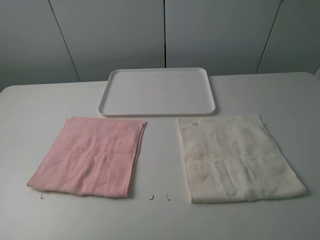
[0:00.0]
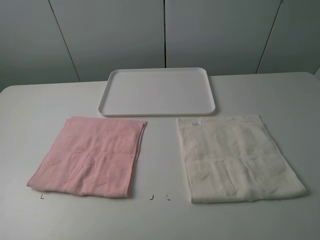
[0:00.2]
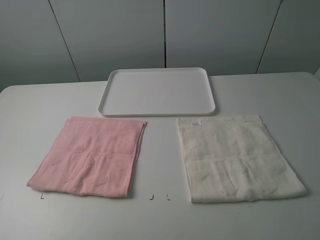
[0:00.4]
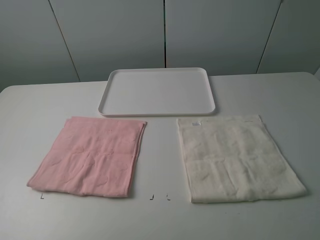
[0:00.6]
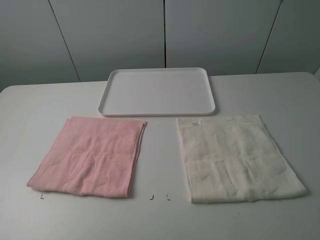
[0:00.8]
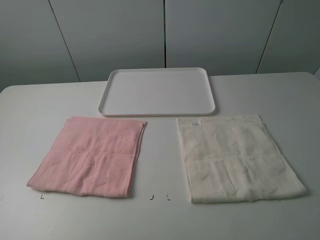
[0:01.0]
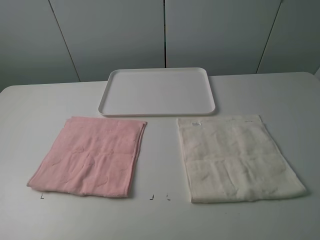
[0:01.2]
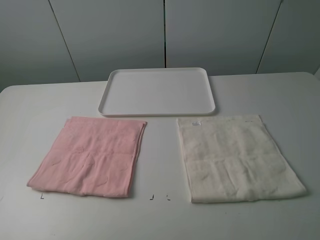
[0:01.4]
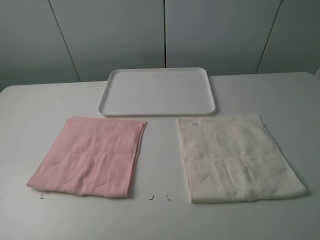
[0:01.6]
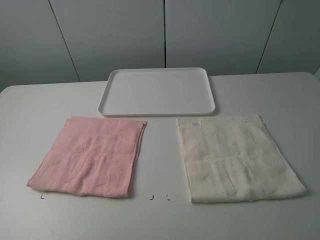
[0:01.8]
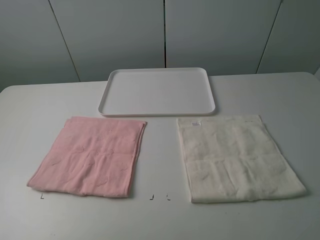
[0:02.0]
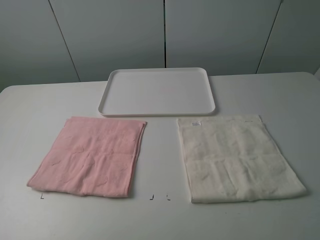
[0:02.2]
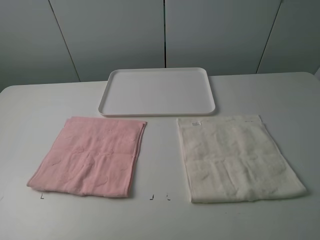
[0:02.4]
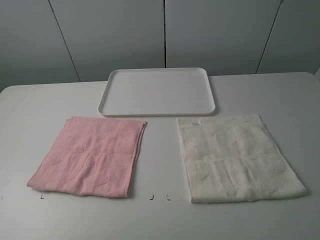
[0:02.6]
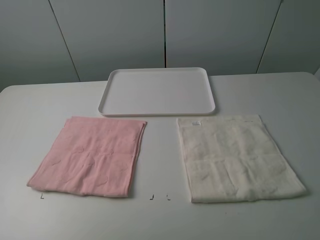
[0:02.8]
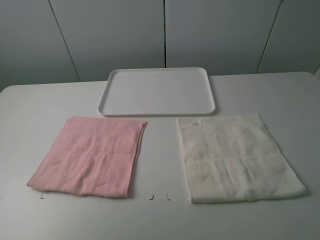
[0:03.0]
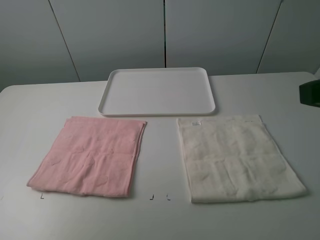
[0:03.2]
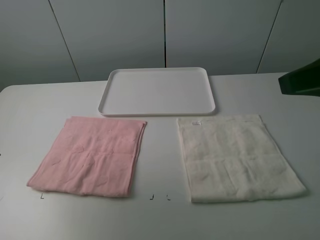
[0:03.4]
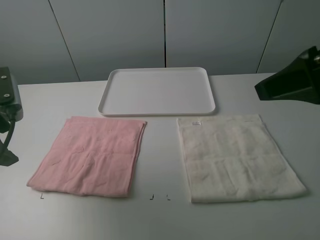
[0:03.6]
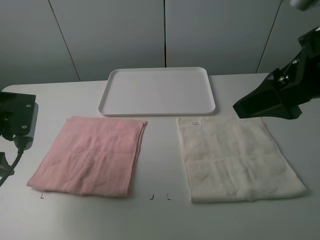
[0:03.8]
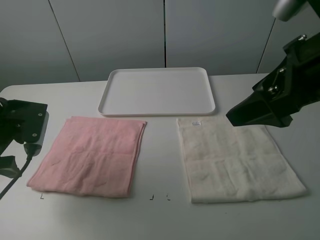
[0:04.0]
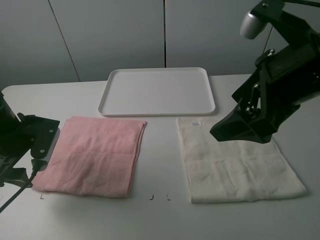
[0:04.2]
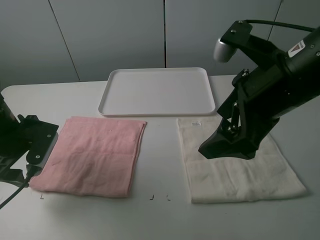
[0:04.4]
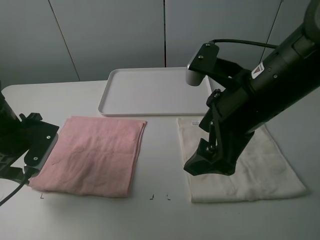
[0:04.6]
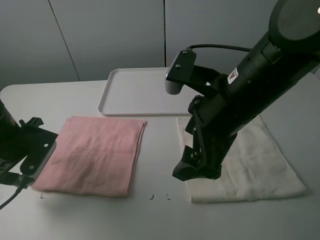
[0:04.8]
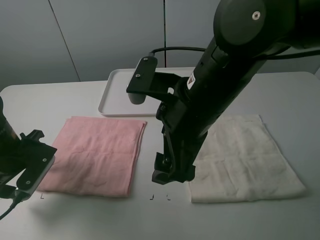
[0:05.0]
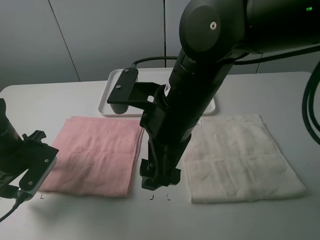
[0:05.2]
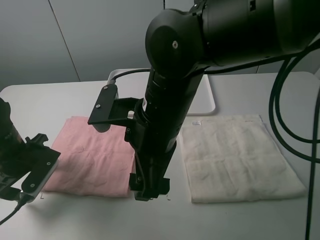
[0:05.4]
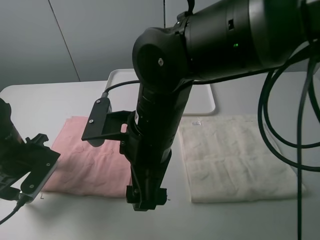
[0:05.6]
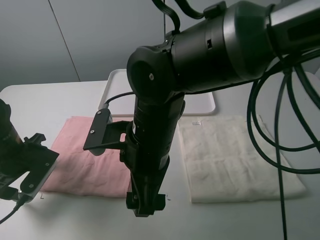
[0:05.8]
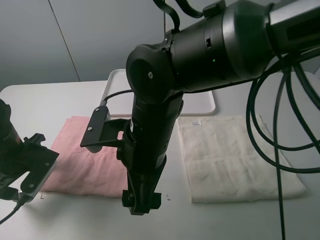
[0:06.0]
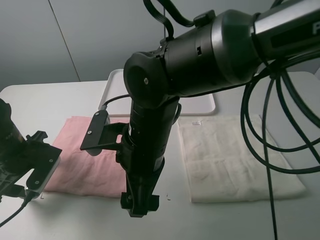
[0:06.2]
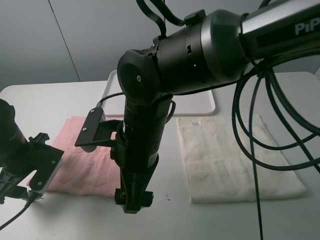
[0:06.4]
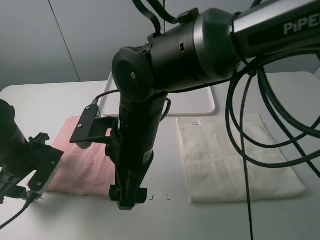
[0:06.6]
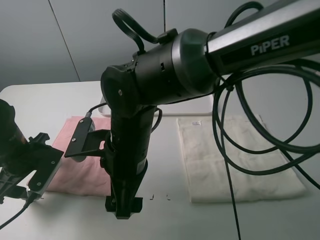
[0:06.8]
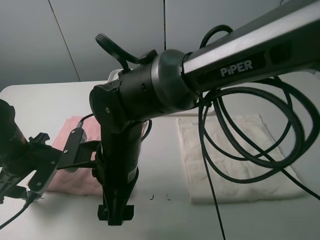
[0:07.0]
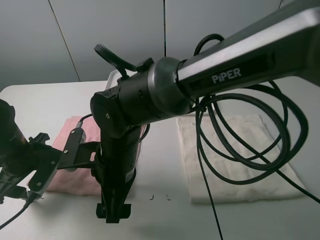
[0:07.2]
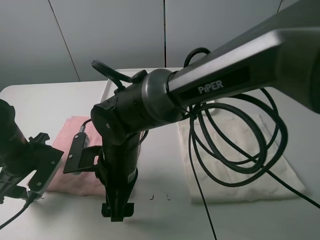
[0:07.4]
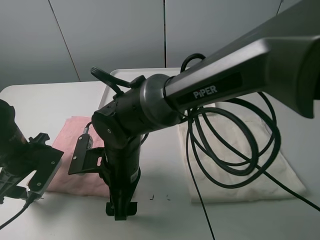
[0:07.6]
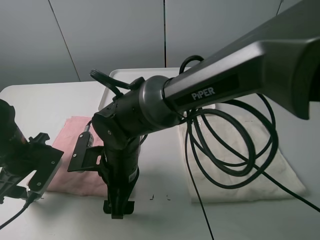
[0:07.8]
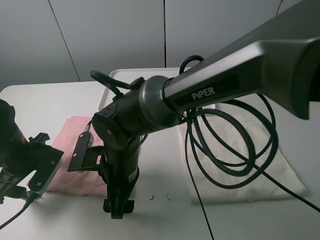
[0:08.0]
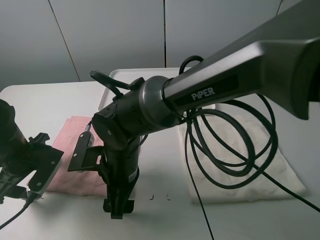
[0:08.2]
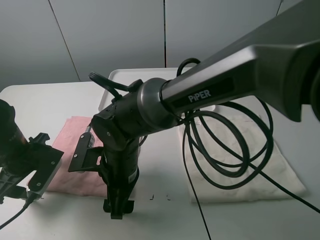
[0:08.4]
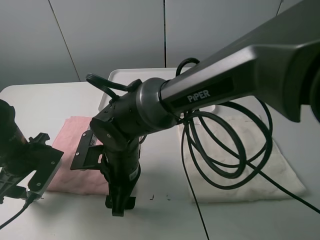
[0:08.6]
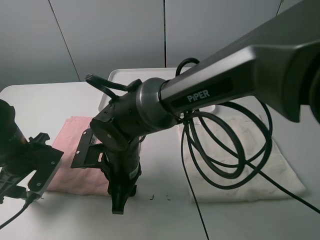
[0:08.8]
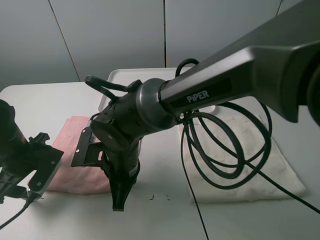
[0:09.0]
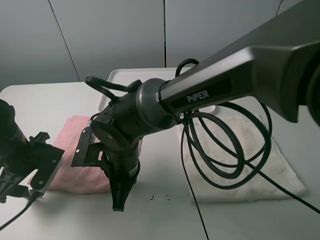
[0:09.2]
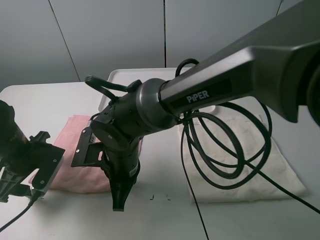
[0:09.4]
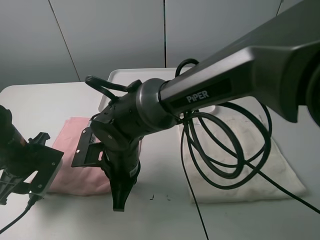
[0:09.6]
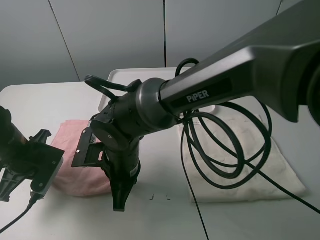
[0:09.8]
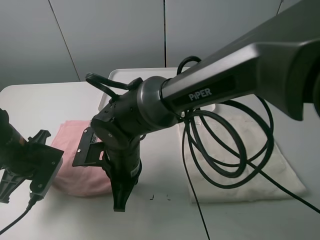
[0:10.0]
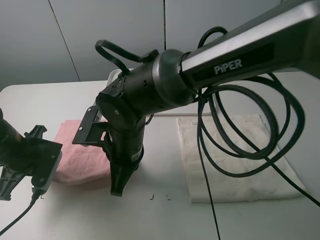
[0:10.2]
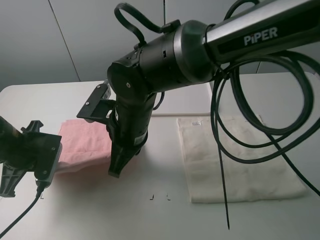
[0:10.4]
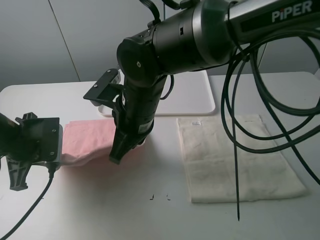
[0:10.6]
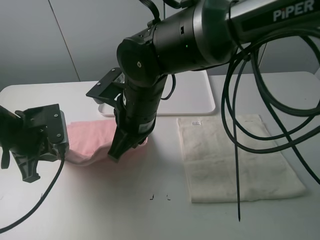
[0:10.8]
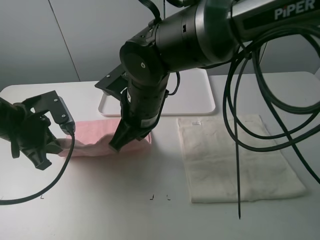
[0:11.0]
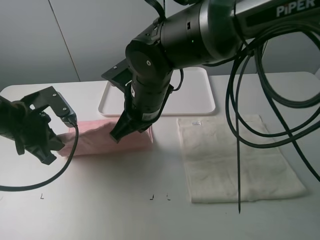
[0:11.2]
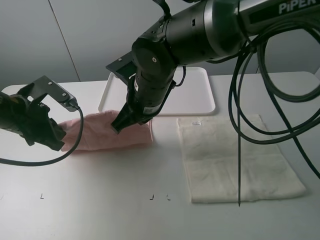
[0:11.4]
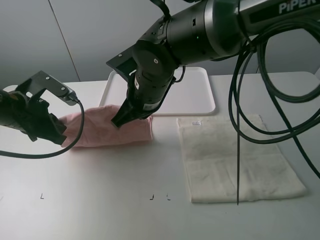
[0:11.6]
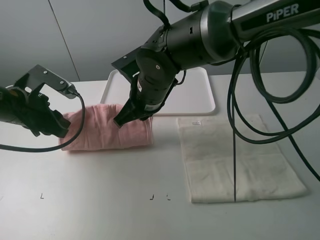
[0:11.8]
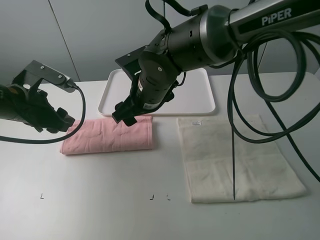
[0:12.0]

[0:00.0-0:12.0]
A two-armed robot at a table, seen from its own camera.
Task of the whole recording: fold one of the towels by two grippers and place it on the tray,then fold another towel by two grippers and place it on the folded towel.
Step, 0:00.0 to 0:09.6: Grasp the pink towel with the left gripper.
0:00.0 to 0:01.6: Both grippers stay put.
0:03.0 to 0:04.4: The left gripper travels downward and forward by roughly 25 cm. The right gripper heads to the left, forward and downward, covering approximately 15 cm.
0:04.4 to 0:06.0: The right gripper shifts approximately 20 cm to the left and downward.
0:06.0 to 0:07.6: The right gripper heads downward and to the left, covering about 10 cm.
0:07.6 to 0:09.0: The right gripper closes up.
0:09.0 to 0:10.4: The right gripper is displaced upward by about 5 cm. Meanwhile the left gripper closes up.
0:10.4 to 0:12.0: The right gripper travels forward by roughly 5 cm, and opens its fingers; the left gripper ends up about 5 cm from where it was, and opens up.

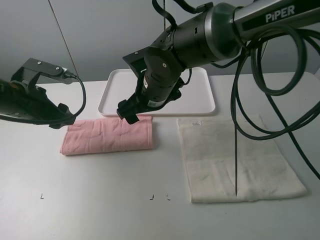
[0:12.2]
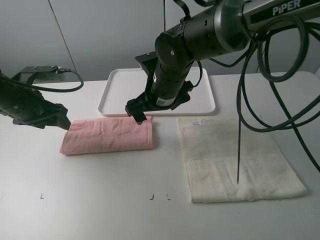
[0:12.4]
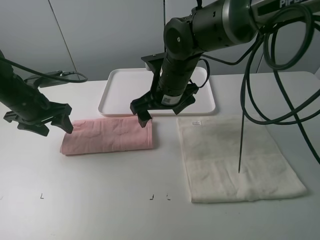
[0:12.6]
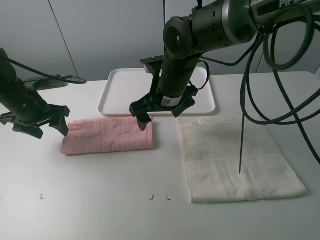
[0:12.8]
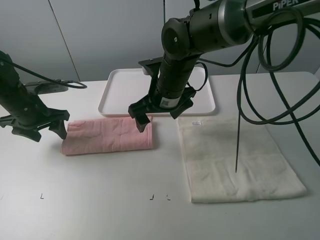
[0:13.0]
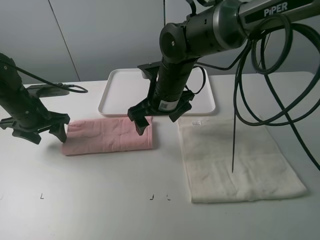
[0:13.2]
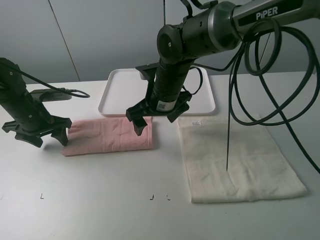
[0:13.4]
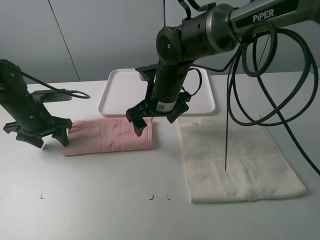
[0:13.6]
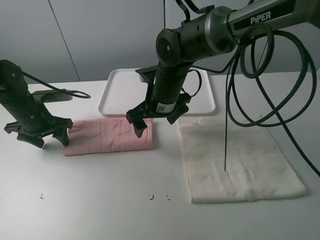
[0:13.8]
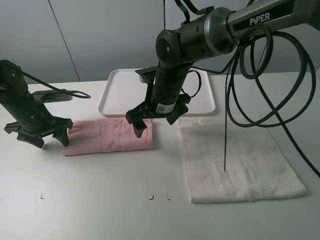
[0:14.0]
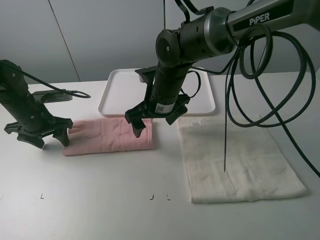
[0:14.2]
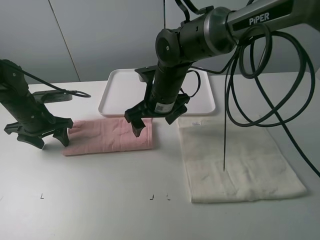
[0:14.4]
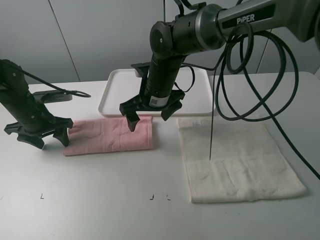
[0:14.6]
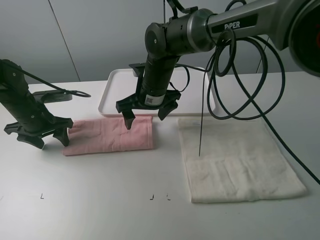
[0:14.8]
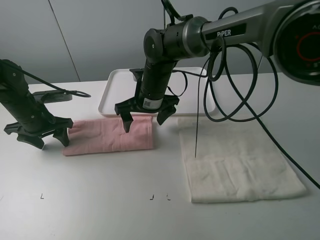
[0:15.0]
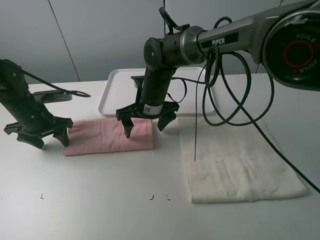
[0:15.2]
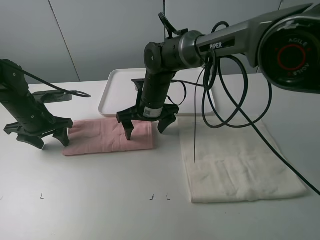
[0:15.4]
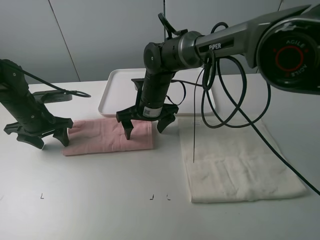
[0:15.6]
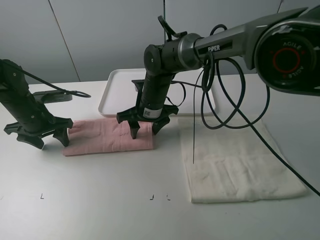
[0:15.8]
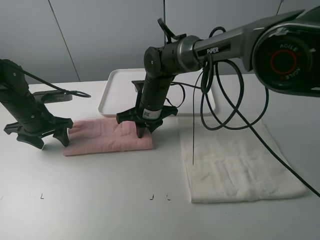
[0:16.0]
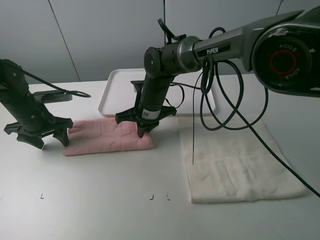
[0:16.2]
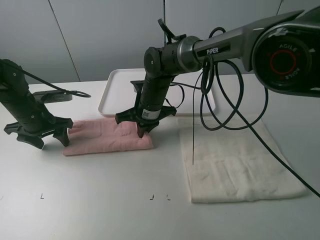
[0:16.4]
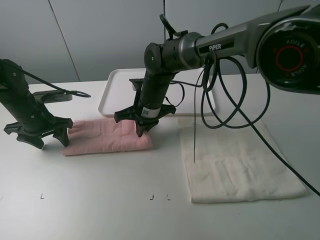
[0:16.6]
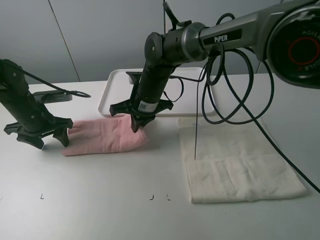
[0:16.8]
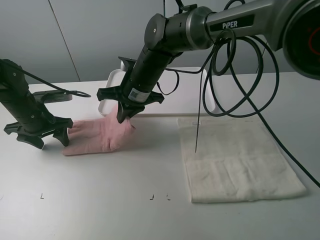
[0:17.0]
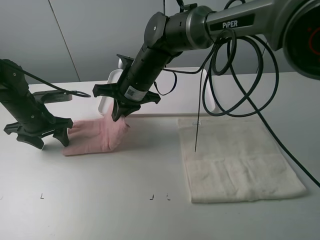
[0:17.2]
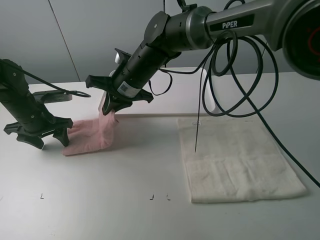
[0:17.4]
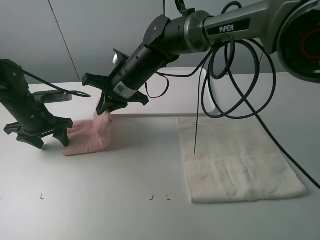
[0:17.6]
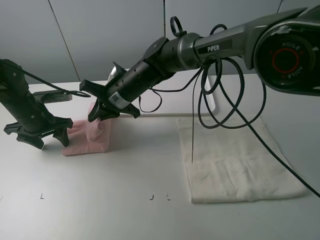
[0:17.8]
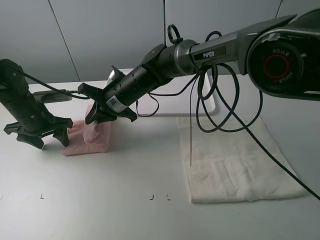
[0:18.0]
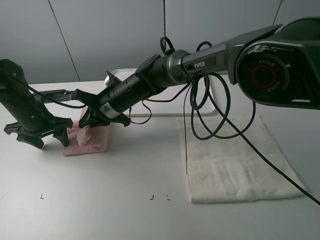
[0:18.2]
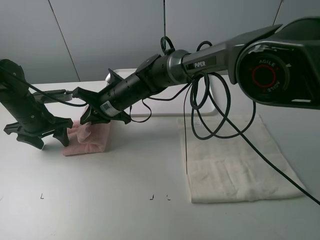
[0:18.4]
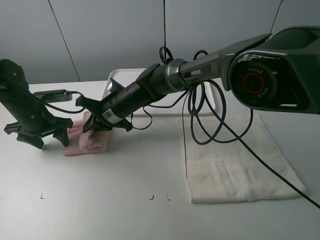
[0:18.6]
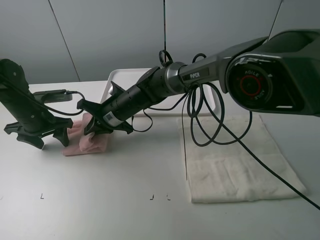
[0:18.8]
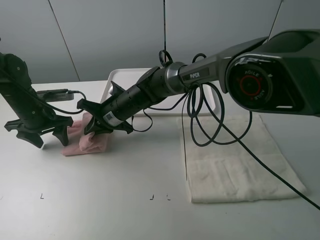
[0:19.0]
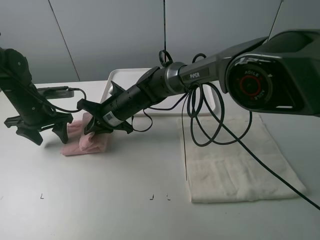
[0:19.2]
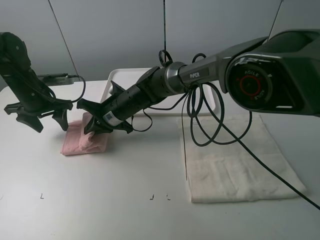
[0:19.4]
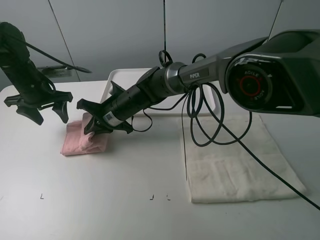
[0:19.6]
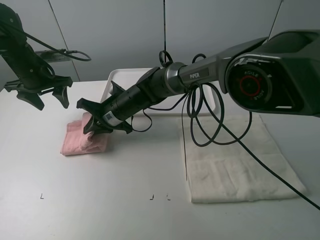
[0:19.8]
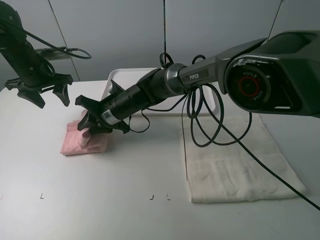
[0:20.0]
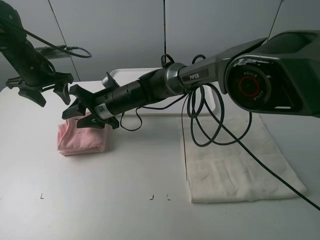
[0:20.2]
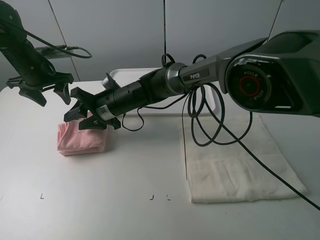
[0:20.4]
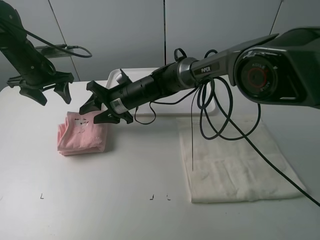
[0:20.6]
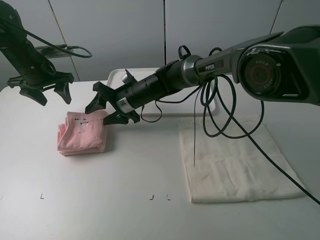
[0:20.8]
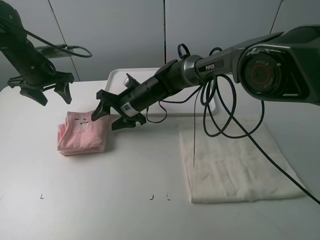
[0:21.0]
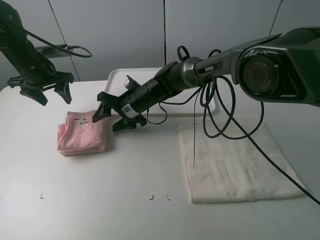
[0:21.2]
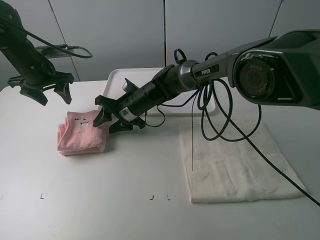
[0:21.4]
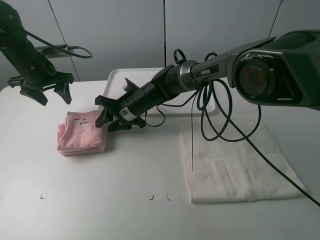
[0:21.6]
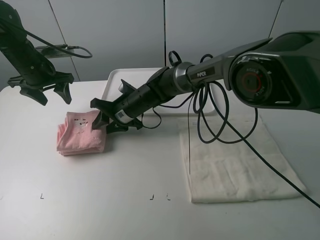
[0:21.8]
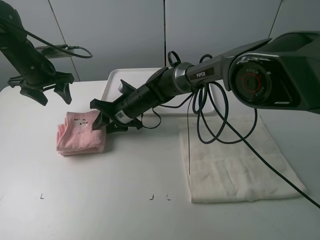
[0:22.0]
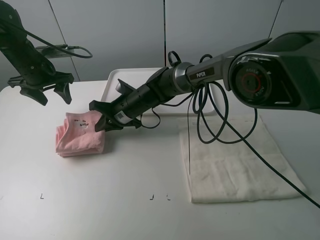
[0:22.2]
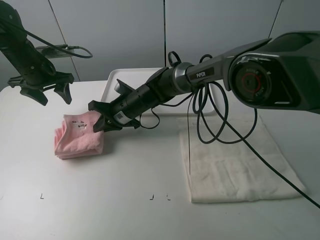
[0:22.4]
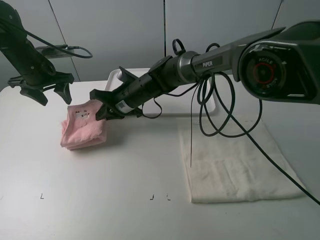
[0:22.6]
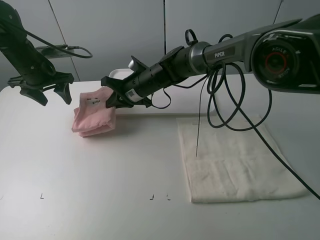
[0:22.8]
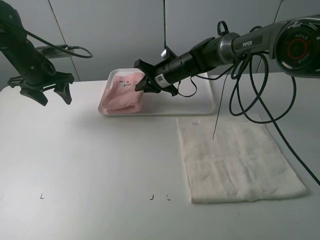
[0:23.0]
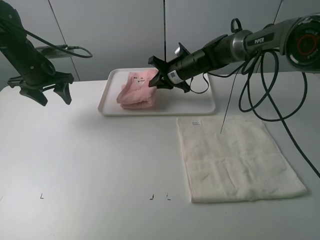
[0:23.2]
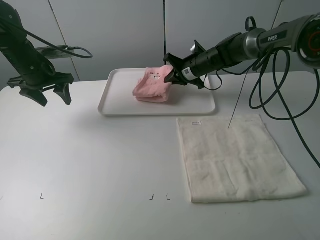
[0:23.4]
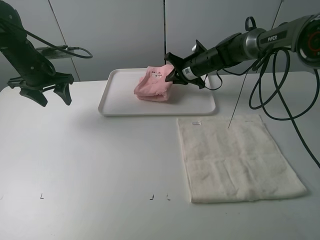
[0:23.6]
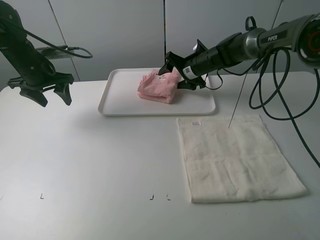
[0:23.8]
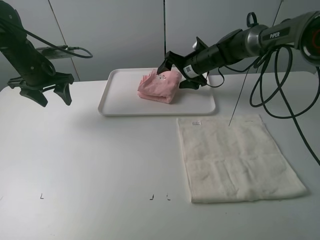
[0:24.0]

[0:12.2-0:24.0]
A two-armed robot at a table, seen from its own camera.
Task of the whole recording: fold one of the towels by two grippers and place it on the tray,then fold another towel by two grippers and place it on the folded towel.
Step, 0:12.4 to 0:14.8: Press the pink towel with the left gripper.
Step, 0:15.0 to 0:16.4: Grasp the pink towel with the right gripper.
Step, 0:16.6 to 0:20.4: Fold the pink towel from right to left with right gripper.
Step, 0:20.6 to 0:22.0: Grasp the pink towel with the right gripper.
Step, 0:22.2 to 0:24.0: Move the pink towel to the plate with the right gripper.
0:12.2 to 0:13.6: The left gripper shifts about 5 cm downward.
0:13.6 to 0:15.2: The right gripper moves about 5 cm.
0:15.2 to 0:16.6: The right gripper closes.
0:16.6 to 0:18.2: The right gripper shifts some 5 cm to the left.
0:18.2 to 0:19.6: The left gripper moves upward and forward, about 10 cm.
0:19.6 to 0:21.0: The right gripper opens up.
0:21.0 to 0:22.6: The right gripper closes up.
0:22.6 to 0:24.0: The right gripper heads to the right and forward, covering approximately 20 cm, and opens up.
